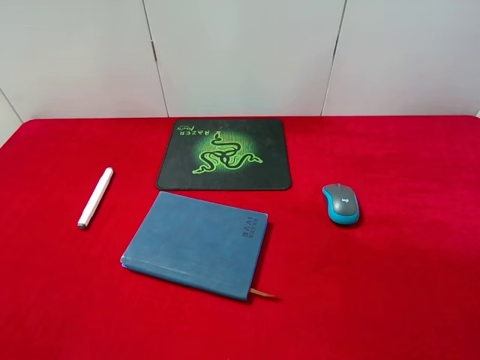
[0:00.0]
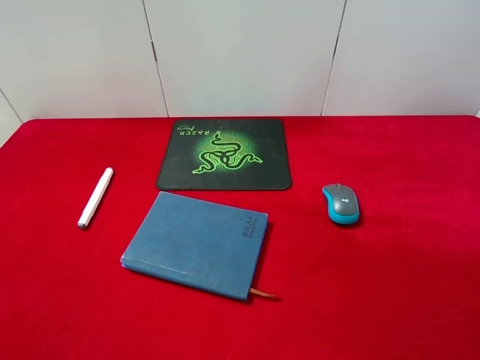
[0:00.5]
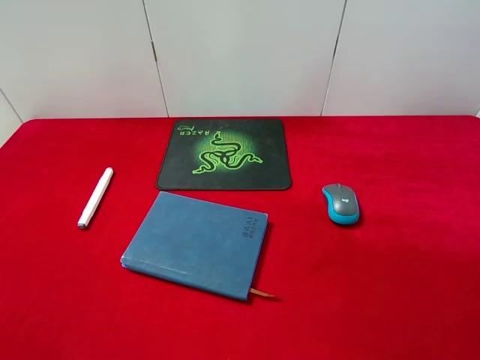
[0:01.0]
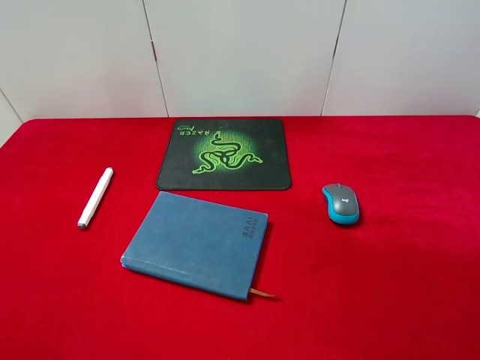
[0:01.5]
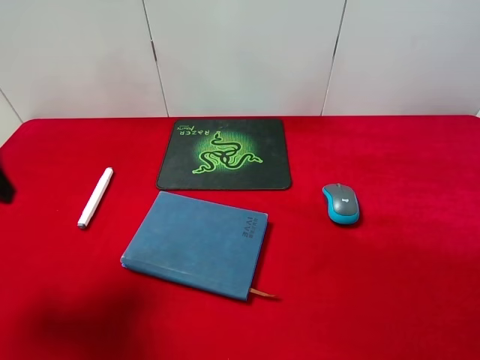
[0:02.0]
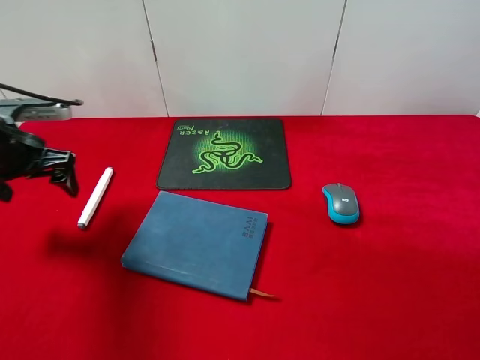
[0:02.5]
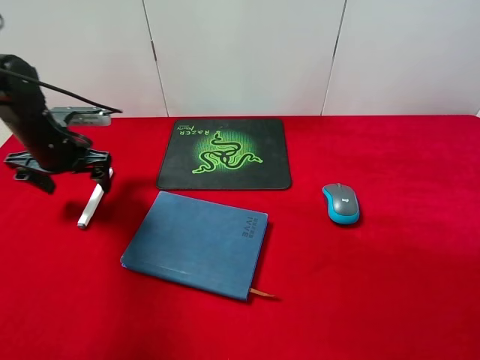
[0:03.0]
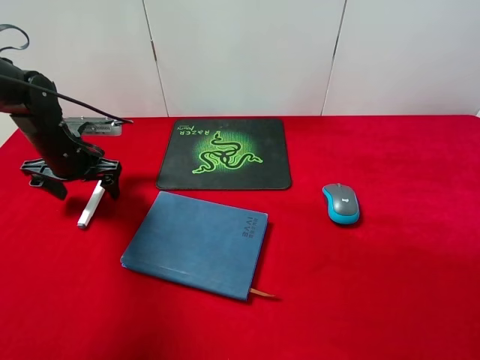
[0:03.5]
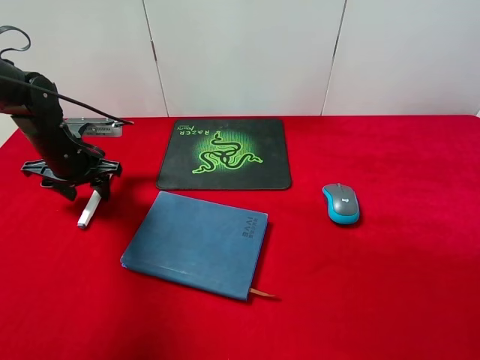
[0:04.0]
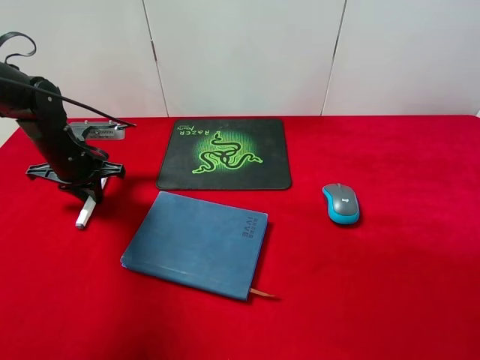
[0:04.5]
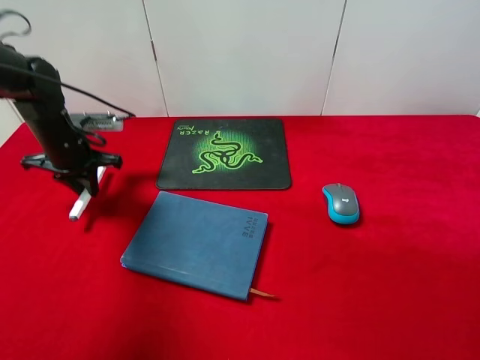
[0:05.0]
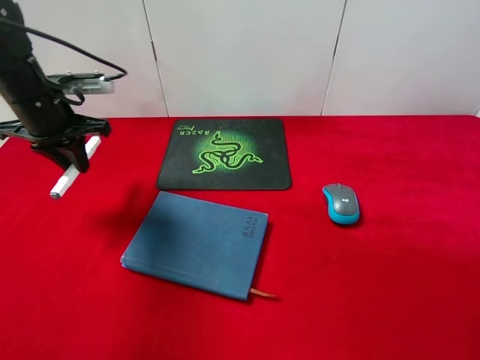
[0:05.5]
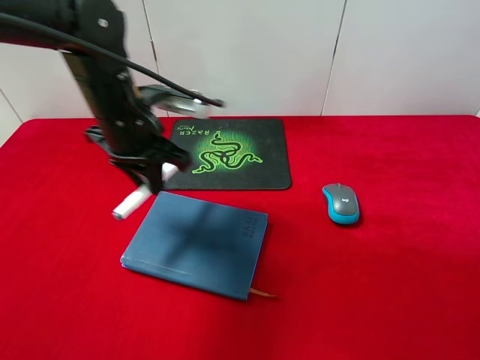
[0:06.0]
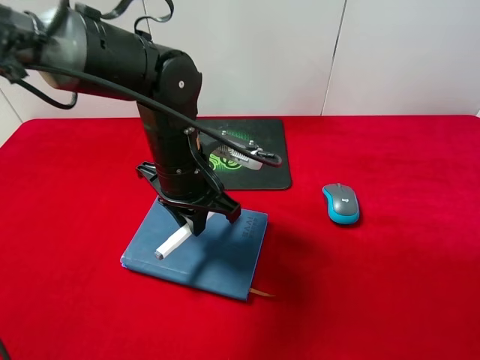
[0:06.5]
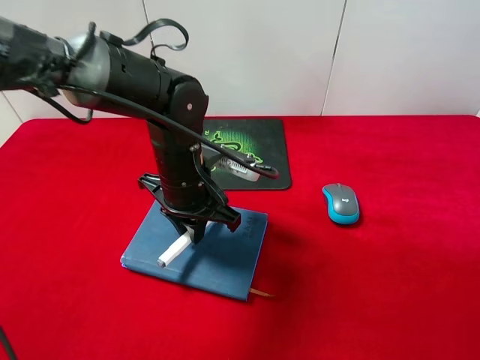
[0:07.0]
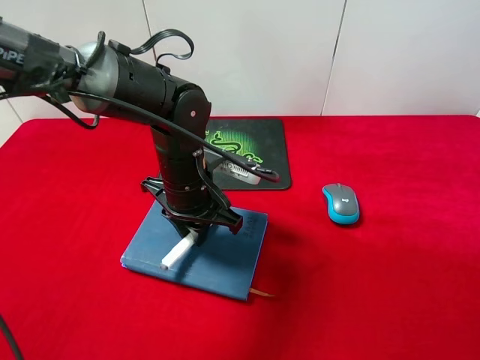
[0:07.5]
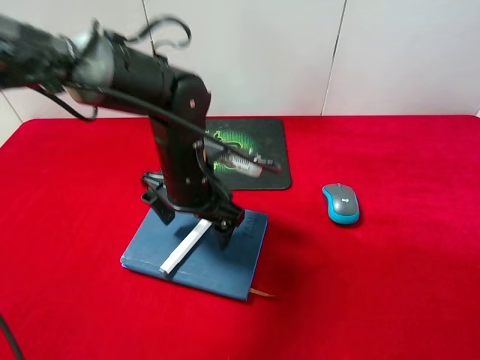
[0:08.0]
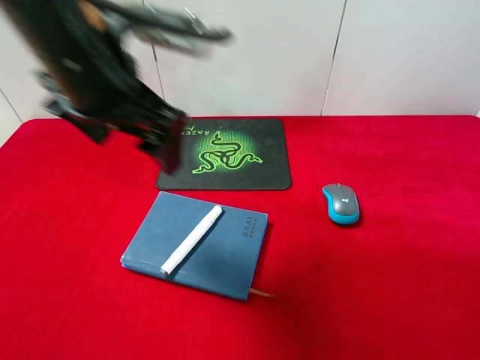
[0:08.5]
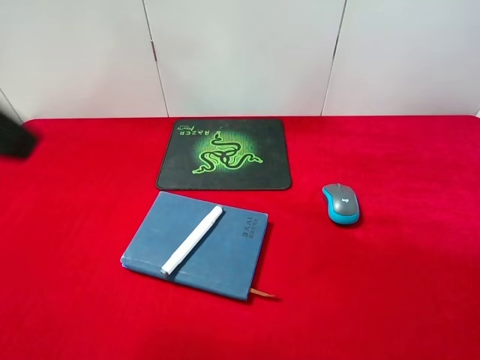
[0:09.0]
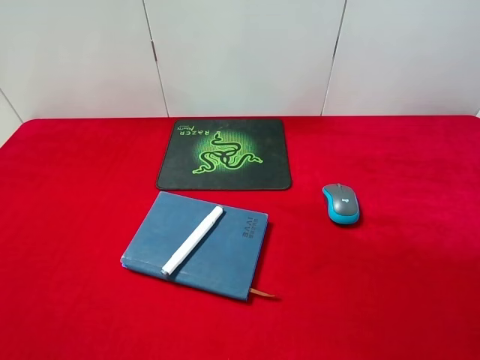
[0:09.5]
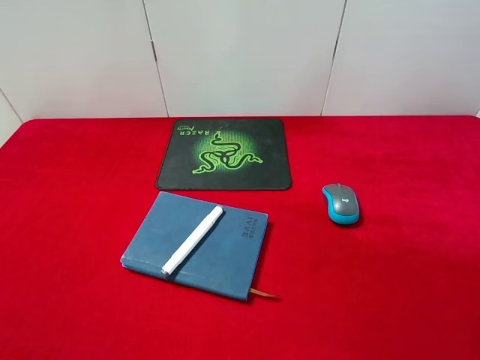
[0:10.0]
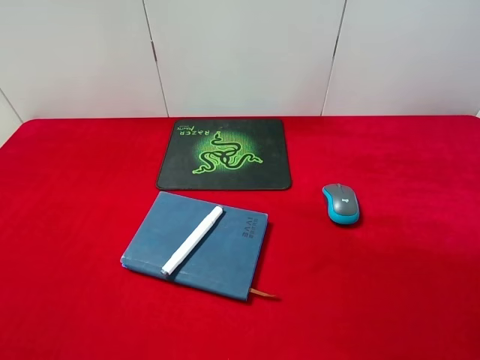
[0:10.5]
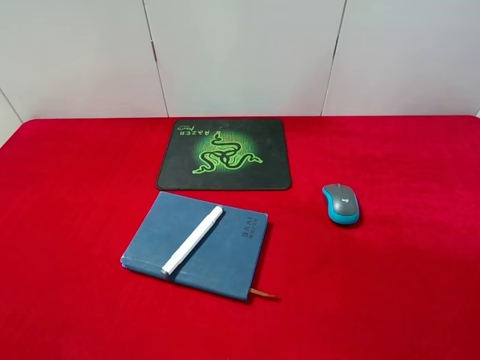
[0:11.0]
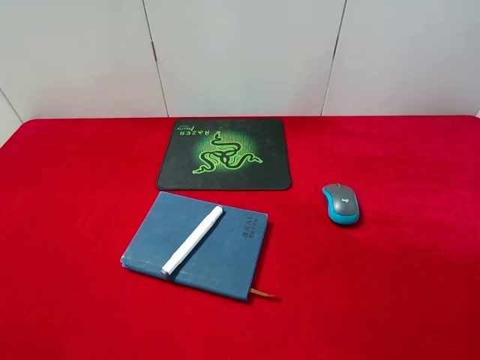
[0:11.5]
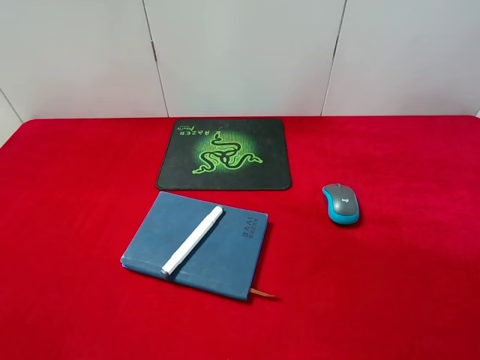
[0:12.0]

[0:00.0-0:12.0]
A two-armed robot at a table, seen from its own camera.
Step, 0:00.0 to 0:05.0: Pick up the marker pen with left gripper.
Step, 0:05.5 to 0:08.0: Place the marker pen on the notebook with left gripper.
0:00.0 to 0:02.0: The left gripper is displaced forward by some 20 cm.
0:02.0 to 0:04.0: The left gripper moves forward and downward, roughly 25 cm, and closes its fingers.
0:04.0 to 0:06.0: The left gripper heads to the right, upward and backward, covering some 20 cm, and closes up.
0:06.0 to 0:08.0: The left gripper heads to the right and downward, covering approximately 10 cm, and opens up.
0:08.0 to 0:10.0: The left gripper goes approximately 40 cm backward, to the left and upward.

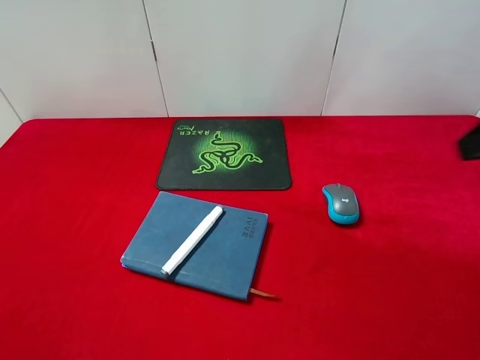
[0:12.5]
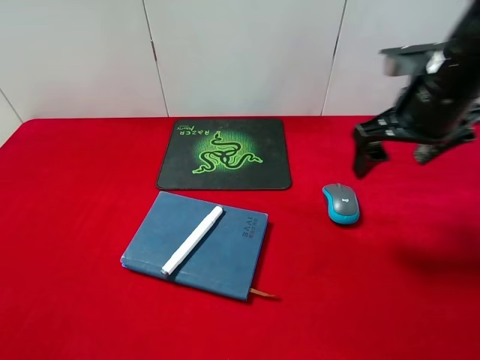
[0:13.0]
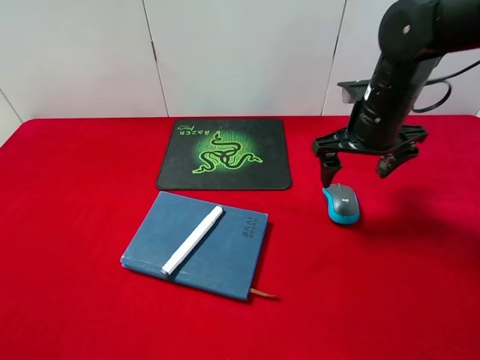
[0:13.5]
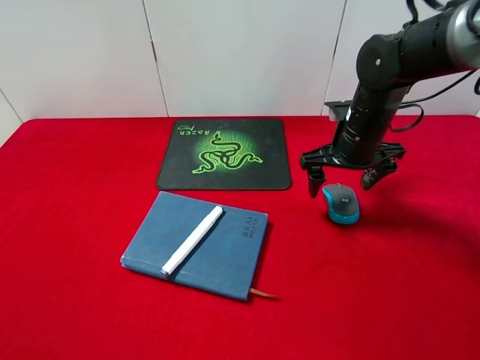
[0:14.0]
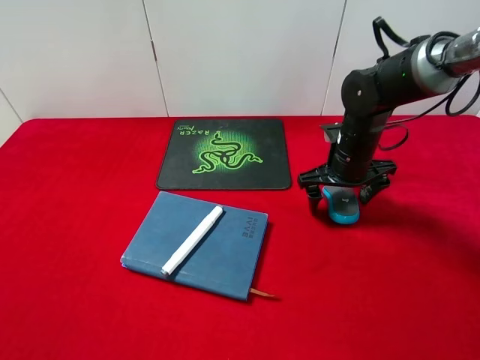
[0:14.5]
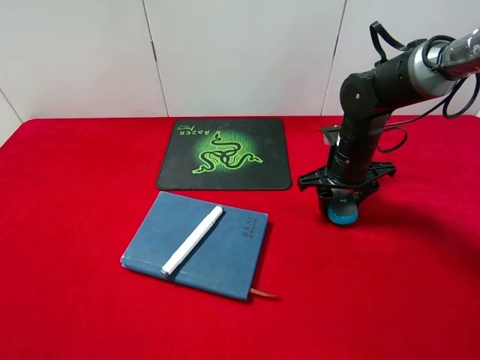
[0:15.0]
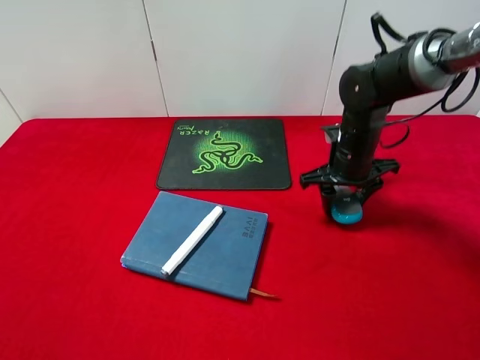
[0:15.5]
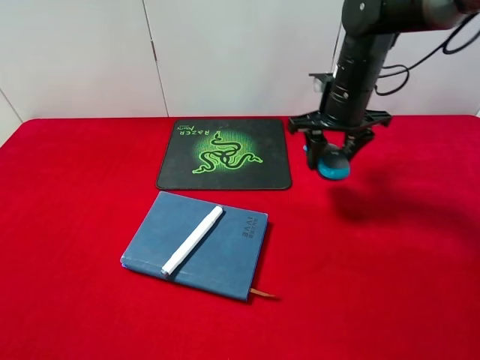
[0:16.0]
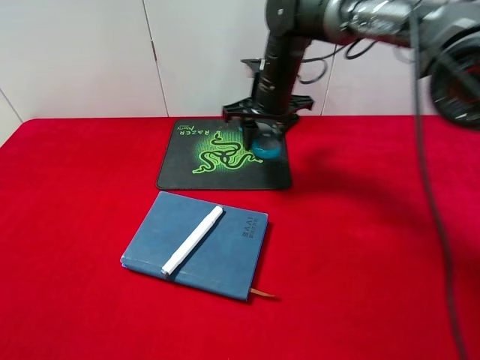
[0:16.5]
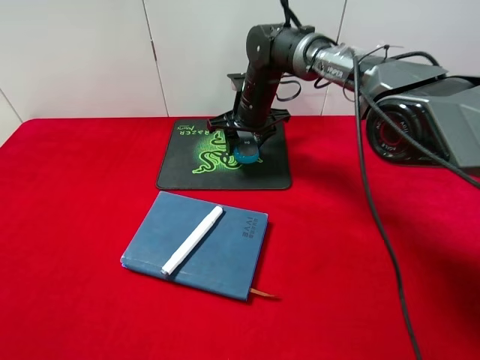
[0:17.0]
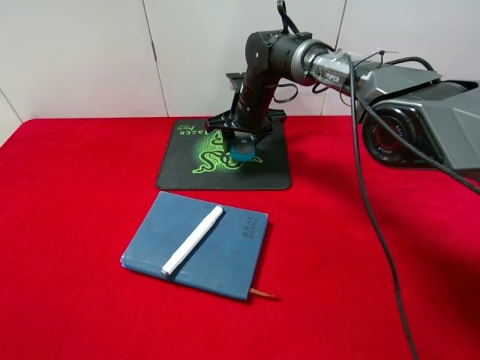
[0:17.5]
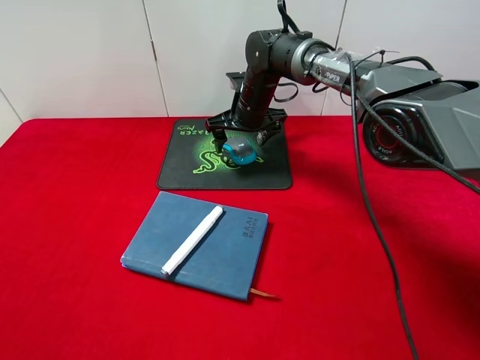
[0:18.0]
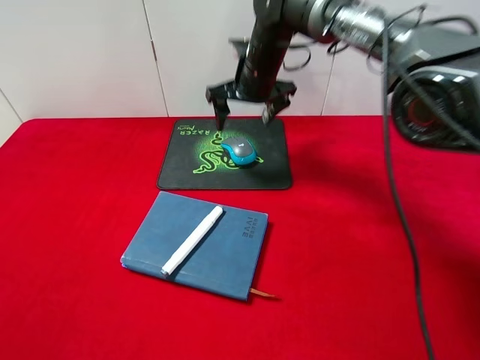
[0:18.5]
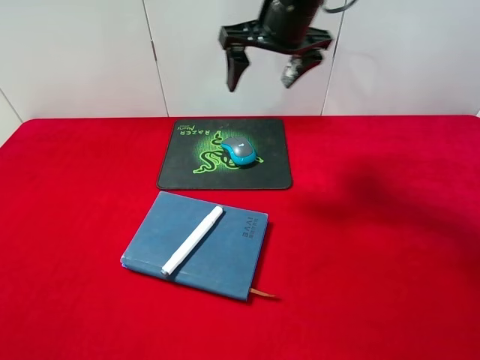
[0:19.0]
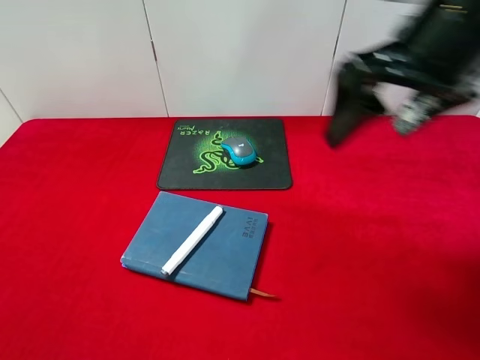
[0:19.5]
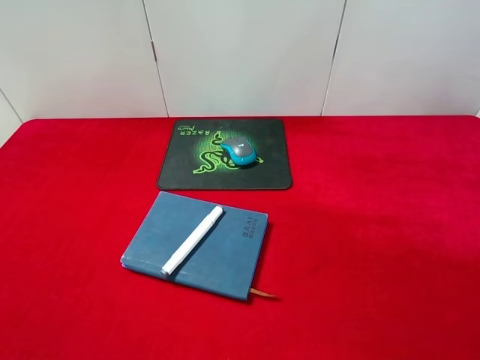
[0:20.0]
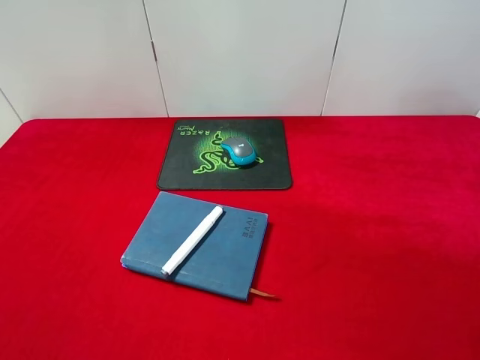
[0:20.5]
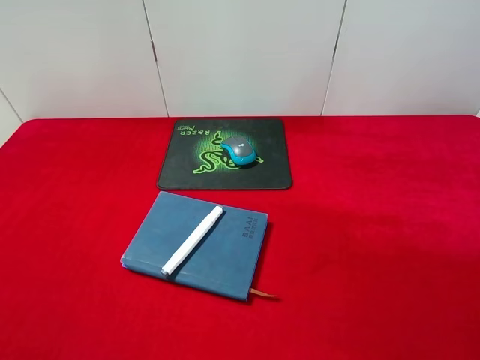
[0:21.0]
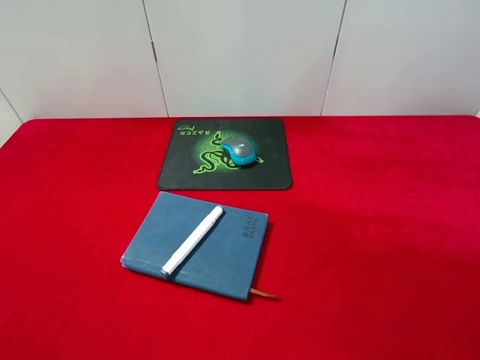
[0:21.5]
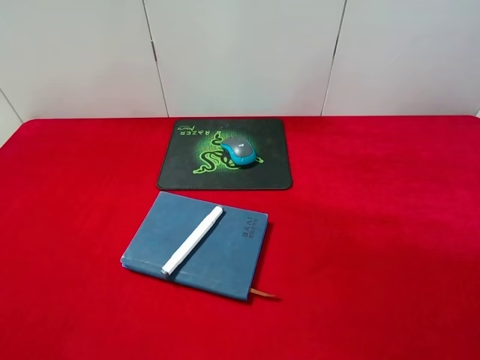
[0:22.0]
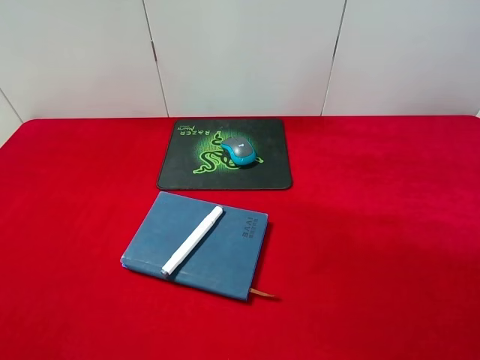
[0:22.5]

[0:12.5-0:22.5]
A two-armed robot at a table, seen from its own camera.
Step, 0:12.5 to 0:15.5: Pick up the mouse with right gripper.
Step, 0:16.0 to 0:18.0: Place the mouse on the mouse pad with right gripper.
0:12.5 to 0:14.5: The right gripper moves downward, forward and to the left, roughly 30 cm.
0:14.5 to 0:16.5: The right gripper shifts approximately 15 cm to the left, forward and upward, and closes up.
0:16.5 to 0:18.5: The right gripper opens its fingers.
0:18.5 to 0:20.5: The right gripper shifts some 50 cm backward and to the right.
